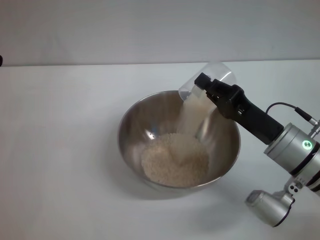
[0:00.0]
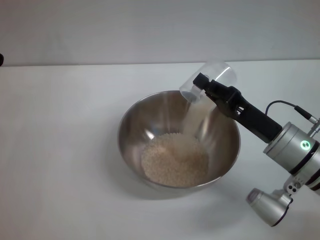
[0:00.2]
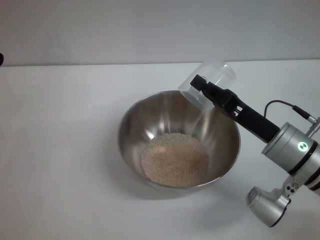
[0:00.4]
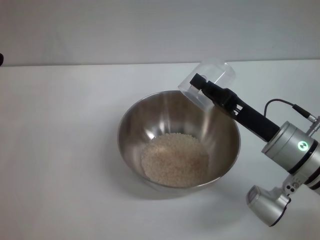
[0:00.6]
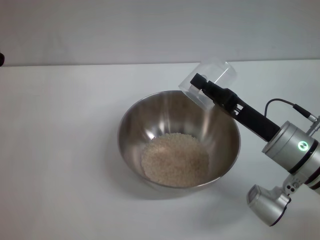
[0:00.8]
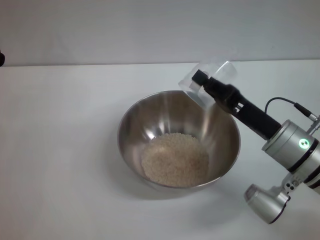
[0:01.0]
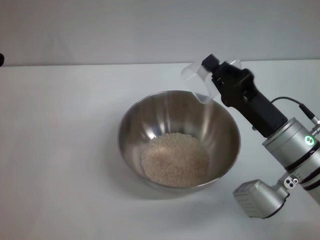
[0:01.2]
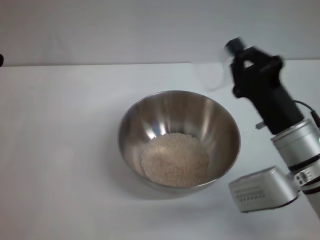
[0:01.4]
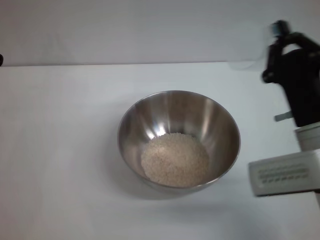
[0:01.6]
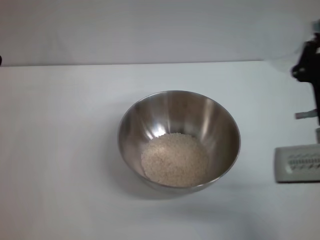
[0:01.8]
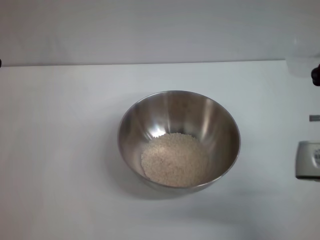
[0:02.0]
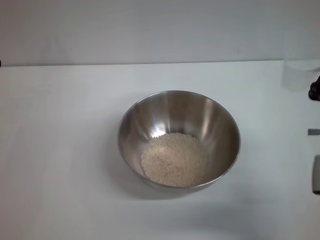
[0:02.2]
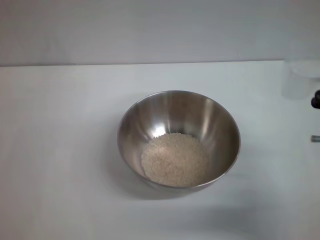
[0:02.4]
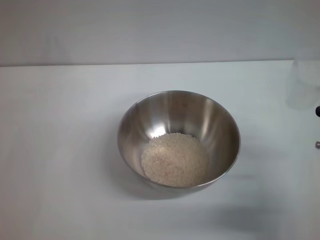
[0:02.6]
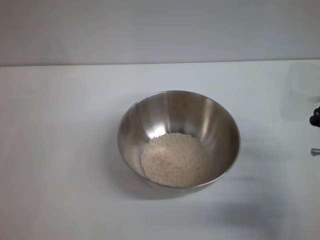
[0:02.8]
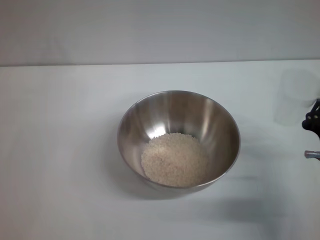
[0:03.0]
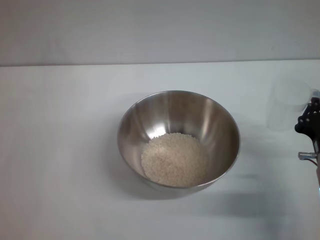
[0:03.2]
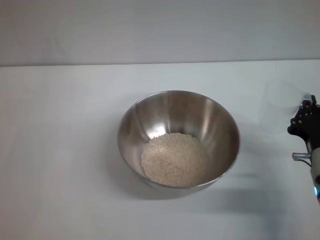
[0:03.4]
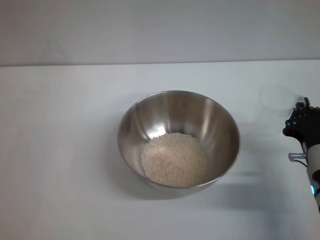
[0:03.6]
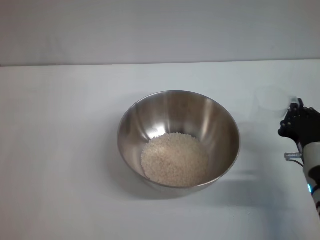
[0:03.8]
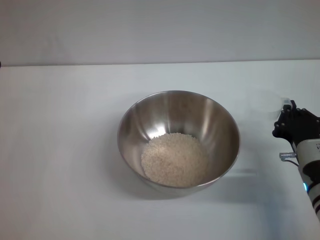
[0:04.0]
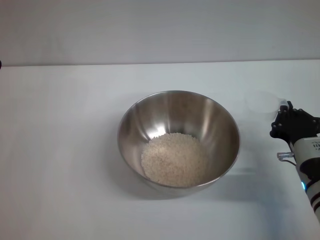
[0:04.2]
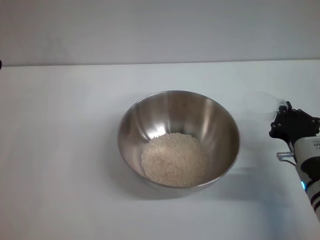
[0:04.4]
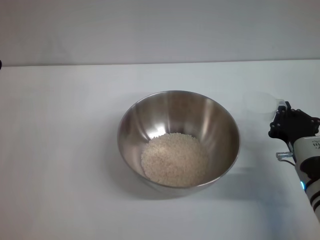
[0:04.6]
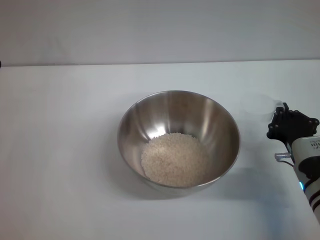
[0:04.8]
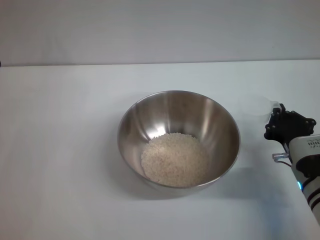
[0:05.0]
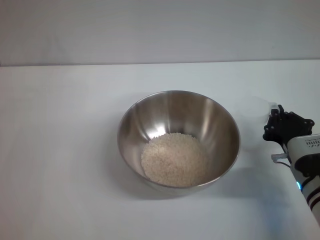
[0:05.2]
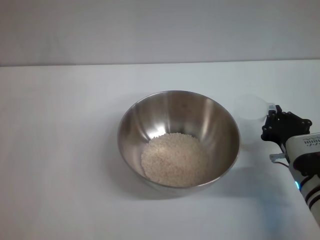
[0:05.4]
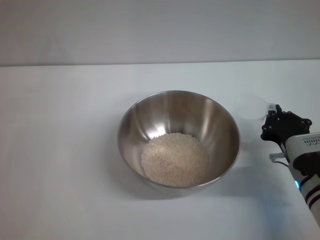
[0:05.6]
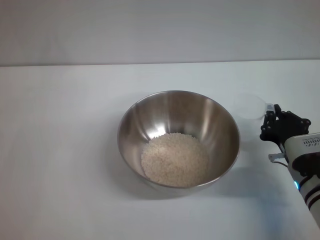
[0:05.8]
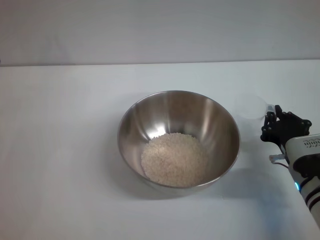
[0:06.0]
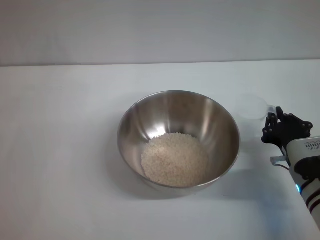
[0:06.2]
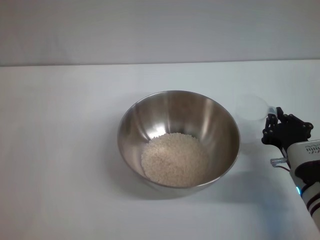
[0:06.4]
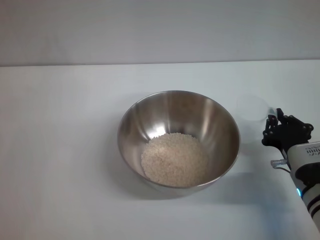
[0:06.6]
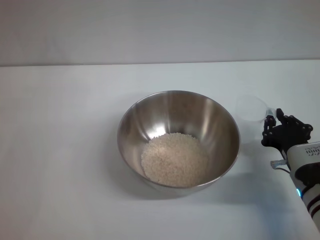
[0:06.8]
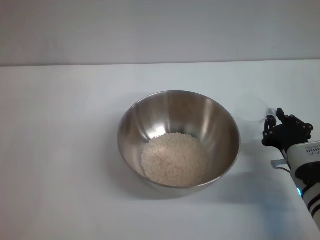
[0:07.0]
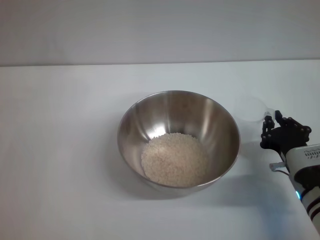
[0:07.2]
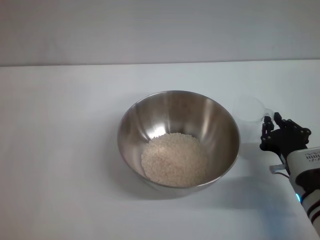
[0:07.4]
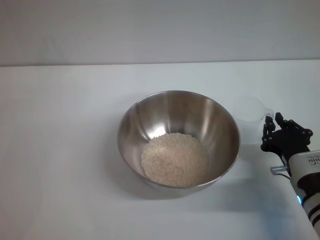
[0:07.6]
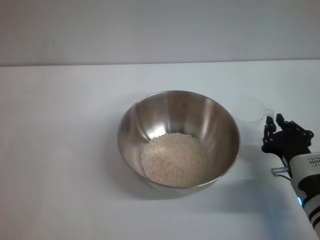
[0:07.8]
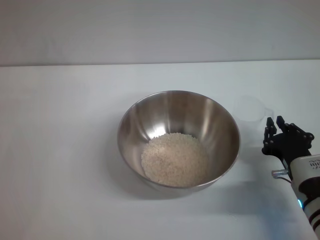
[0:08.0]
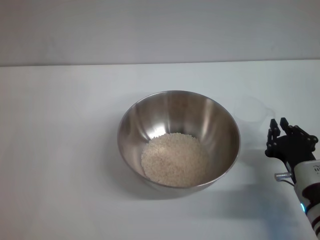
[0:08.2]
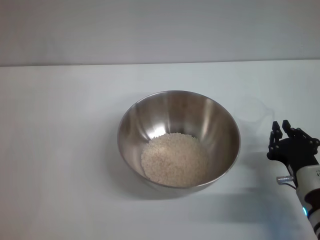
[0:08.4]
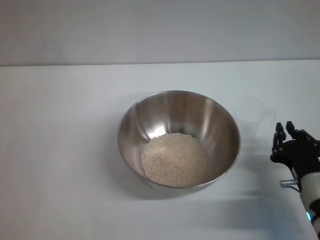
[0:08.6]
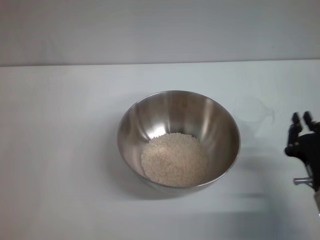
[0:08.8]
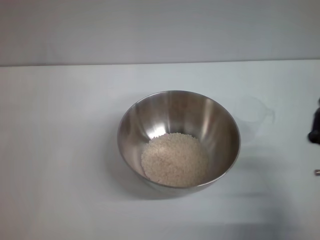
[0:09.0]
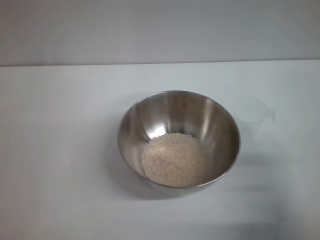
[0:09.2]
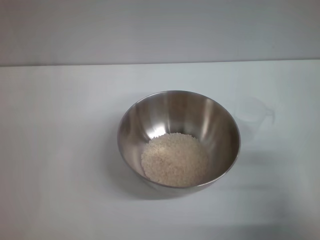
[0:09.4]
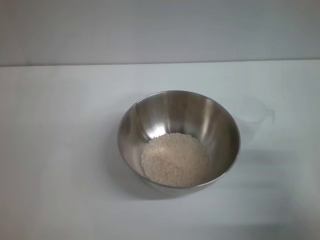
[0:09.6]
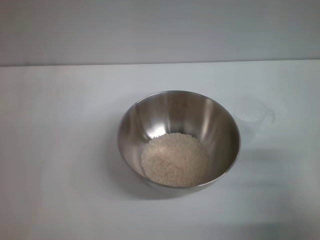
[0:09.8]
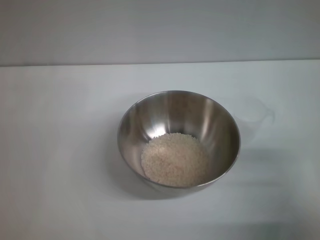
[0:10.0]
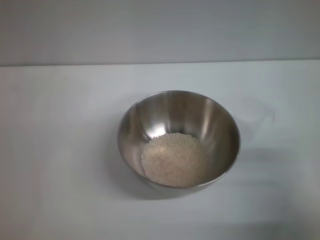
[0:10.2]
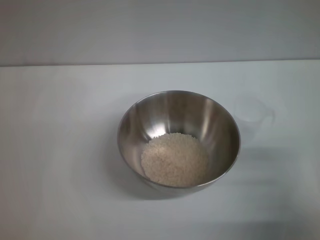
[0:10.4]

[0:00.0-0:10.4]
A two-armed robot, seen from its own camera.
Task of the whole recording: Place the bowl in the middle of the table with one hand and pour the rice from the grain cup into it with the other hand.
Step, 0:01.0 to 0:08.6: Place the cup on the table with the right gripper.
0:01.4 to 0:03.0: The right gripper ends up some 10 cm from where it was.
0:03.0 to 0:04.4: The grippers stay close to where they were, moving slightly.
0:04.4 to 0:06.0: The two grippers keep their place.
0:06.0 to 0:07.4: The grippers make only small movements.
0:07.4 to 0:09.0: The right gripper heads backward, covering approximately 5 cm.
0:09.0 to 0:10.4: The right gripper ends up some 5 cm from where it was, and opens up.
